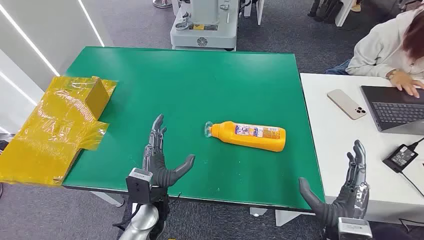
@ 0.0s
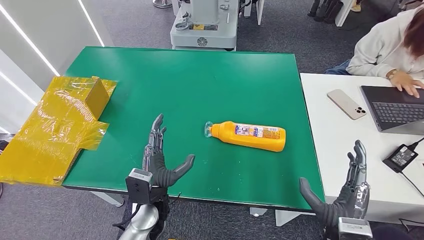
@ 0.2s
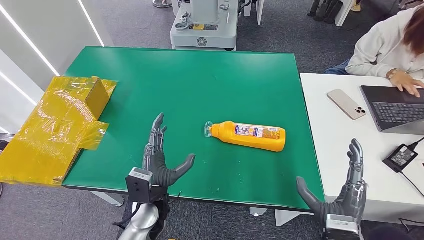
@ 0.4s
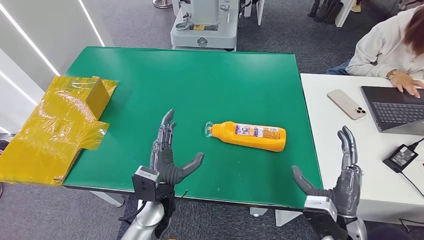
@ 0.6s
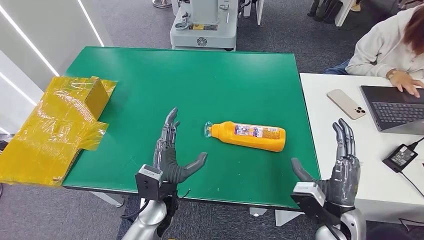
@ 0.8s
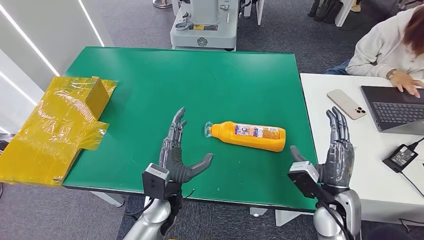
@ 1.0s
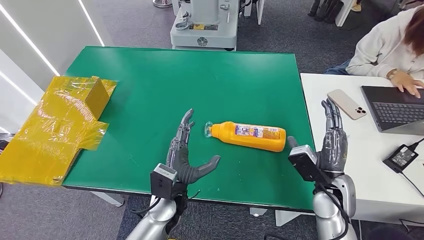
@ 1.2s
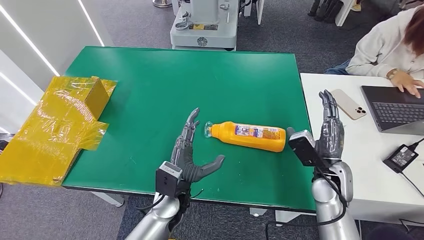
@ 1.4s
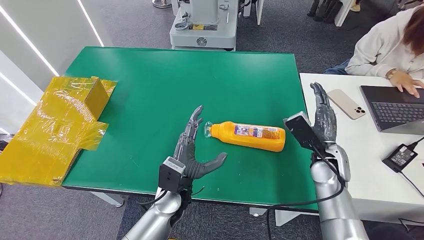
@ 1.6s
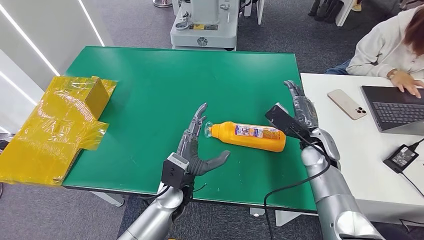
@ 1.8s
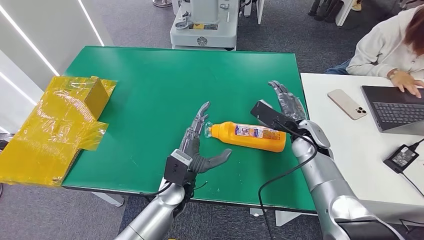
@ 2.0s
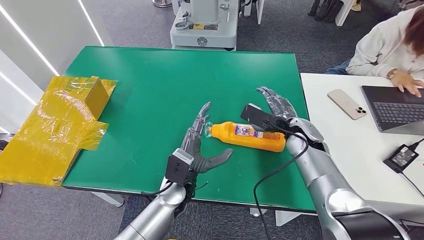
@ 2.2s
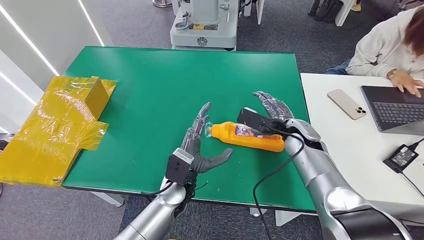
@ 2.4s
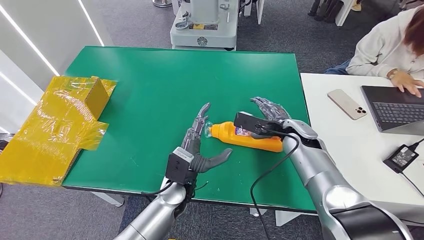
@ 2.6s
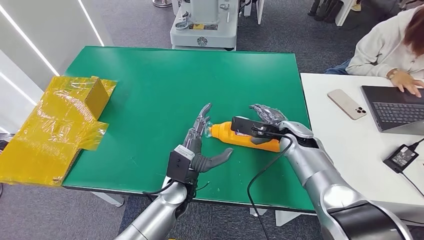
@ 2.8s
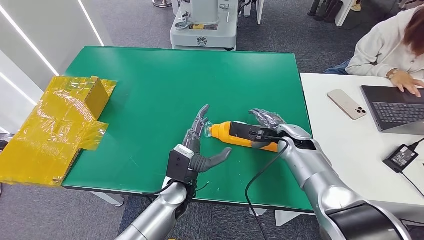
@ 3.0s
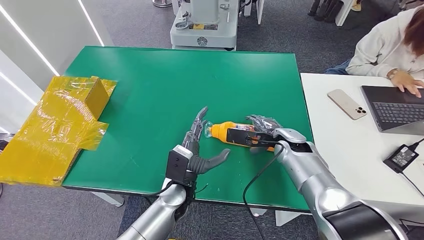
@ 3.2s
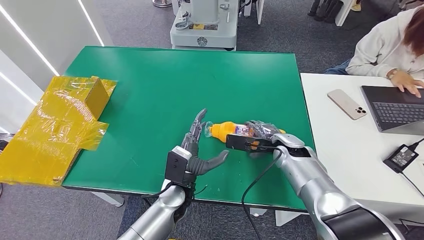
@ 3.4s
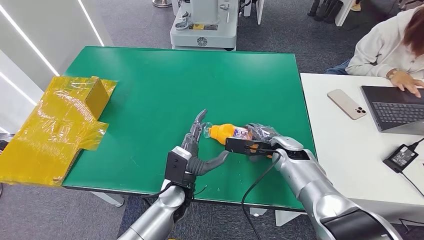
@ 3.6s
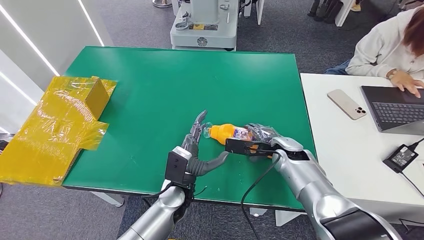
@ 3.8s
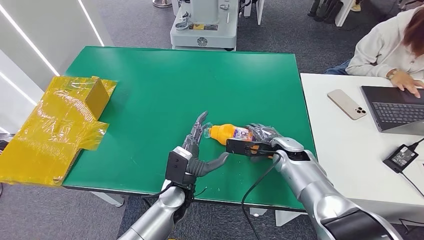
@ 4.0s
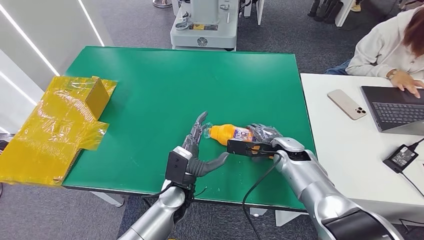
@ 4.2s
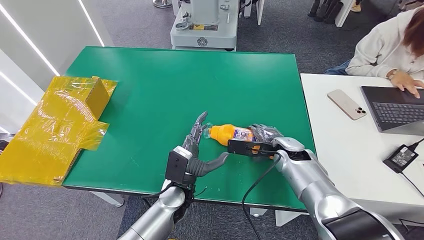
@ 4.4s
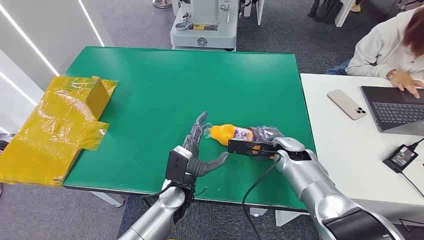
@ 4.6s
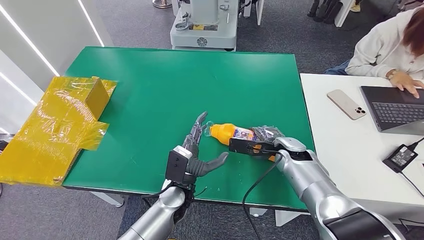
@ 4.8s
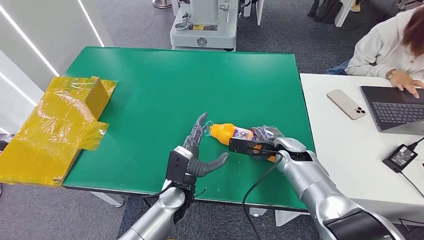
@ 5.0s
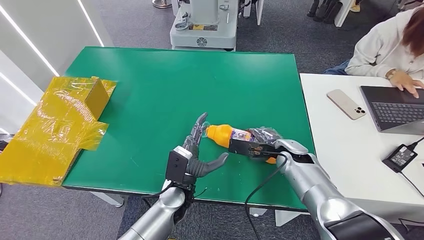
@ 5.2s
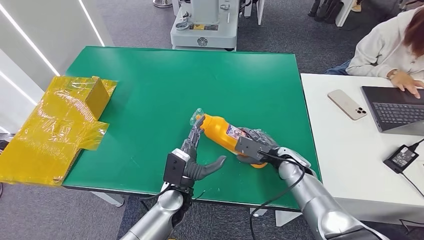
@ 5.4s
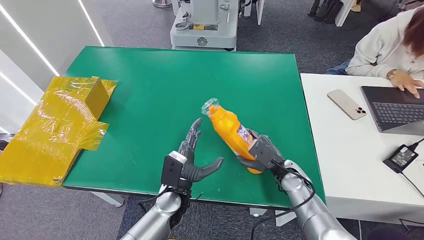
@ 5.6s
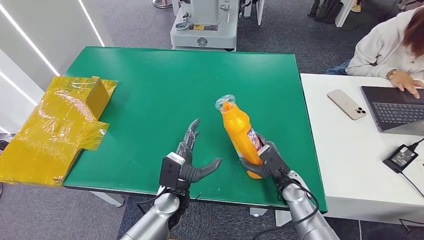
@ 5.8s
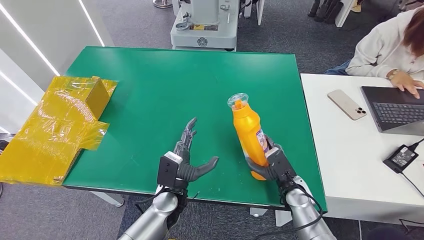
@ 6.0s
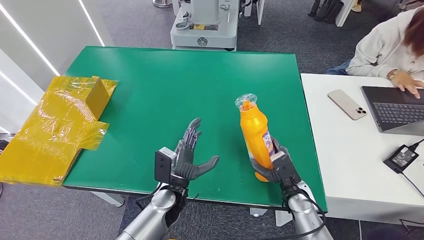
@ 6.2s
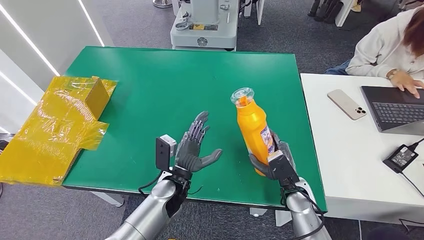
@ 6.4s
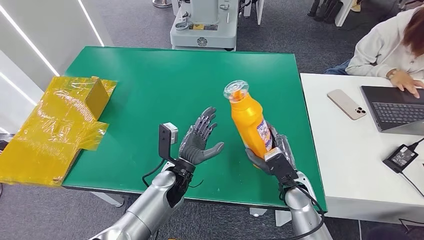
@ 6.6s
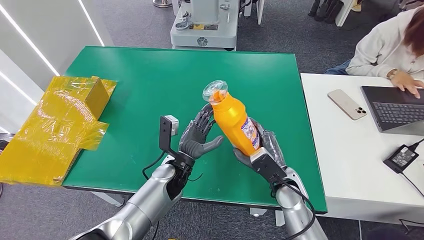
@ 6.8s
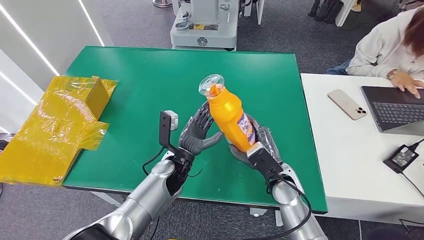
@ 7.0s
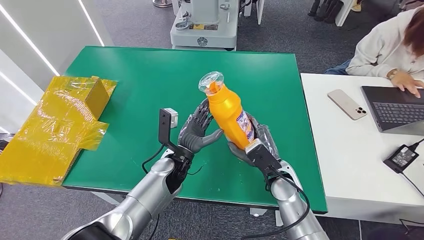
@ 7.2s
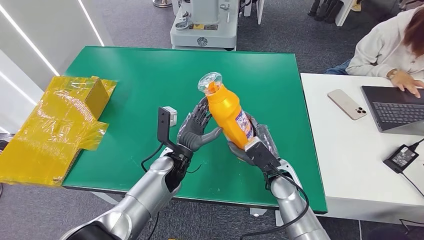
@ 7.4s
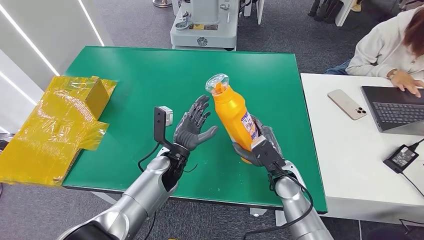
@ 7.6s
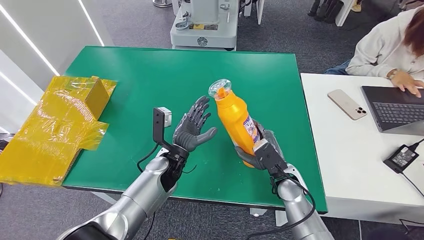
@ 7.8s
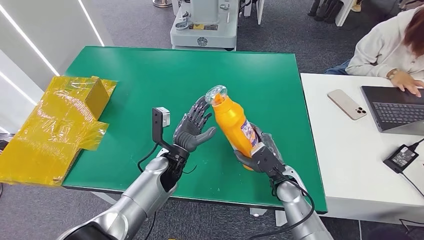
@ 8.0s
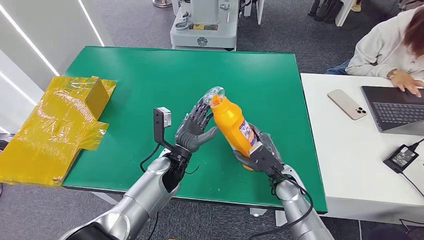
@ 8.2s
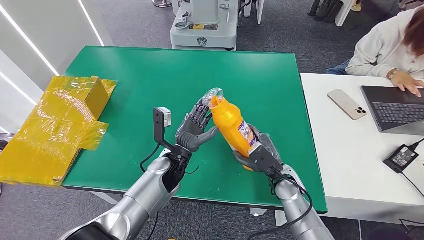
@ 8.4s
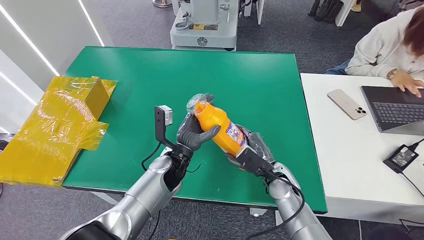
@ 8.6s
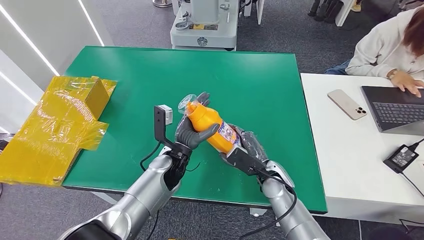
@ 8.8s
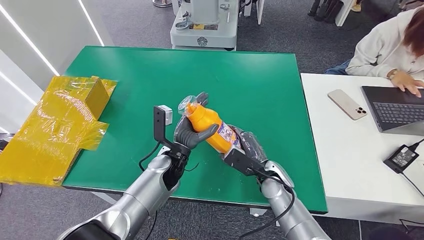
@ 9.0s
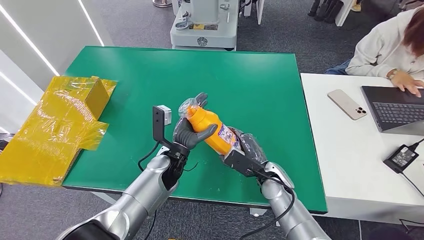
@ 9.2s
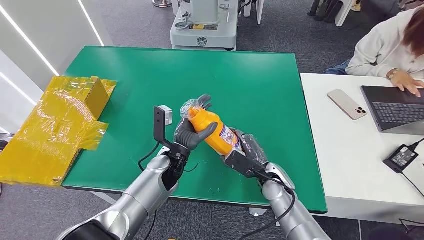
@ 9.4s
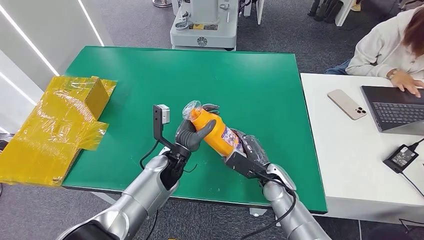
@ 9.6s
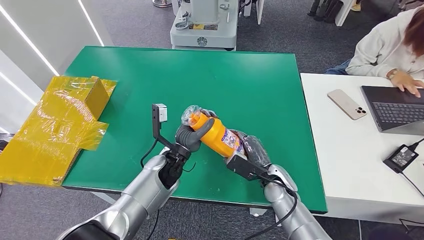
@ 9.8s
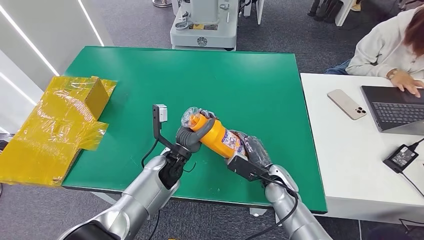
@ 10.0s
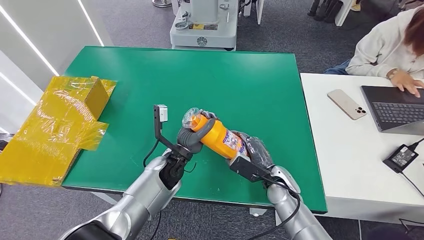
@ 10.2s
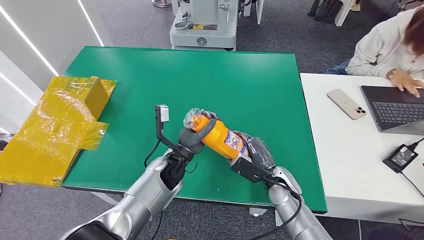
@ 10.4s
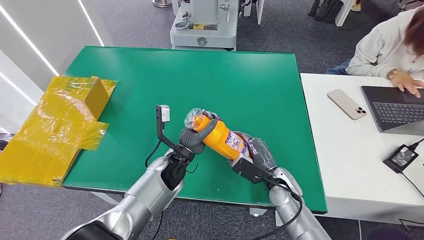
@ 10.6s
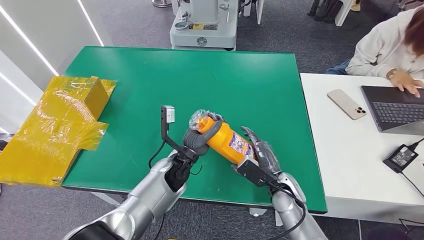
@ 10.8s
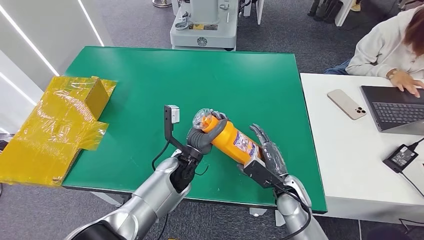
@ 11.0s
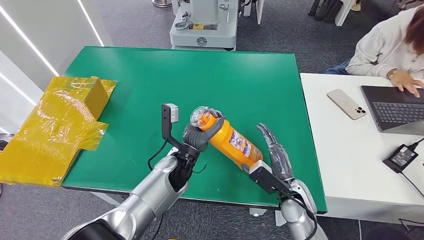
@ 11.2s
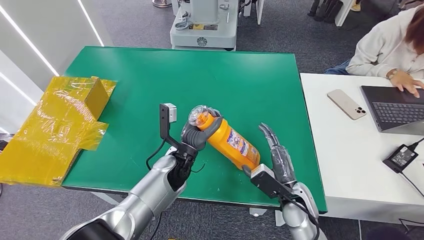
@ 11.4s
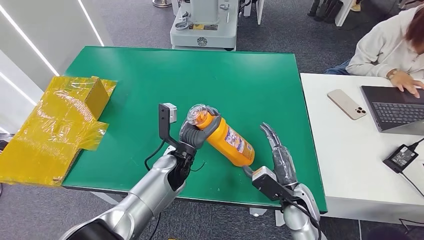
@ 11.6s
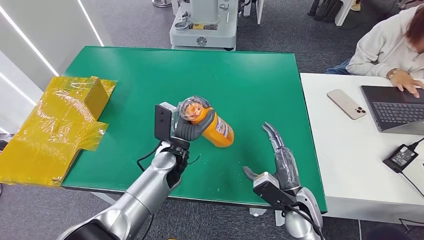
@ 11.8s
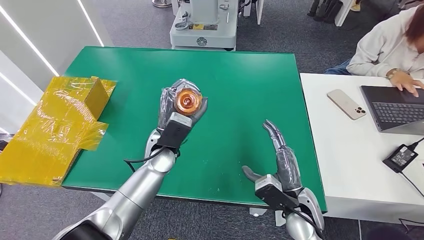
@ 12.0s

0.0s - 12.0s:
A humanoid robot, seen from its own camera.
Step, 0.0s - 6.2s: Pick up the bottle from the table.
1.6s - 3.0s: The right hand is displaced forward by roughly 5 cm.
3.0s - 4.4s: There are only small adjustments of the hands.
4.4s - 6.0s: The right hand is displaced backward and downward by approximately 15 cm.
6.0s - 7.6s: The left hand heads forward, covering about 5 cm. The right hand travels upward and to the left by about 10 cm.
7.6s - 9.0s: The hands stay close to where they were, moving slightly.
10.4s - 12.0s: The right hand shifts about 5 cm backward, while the left hand travels upward by roughly 5 cm.

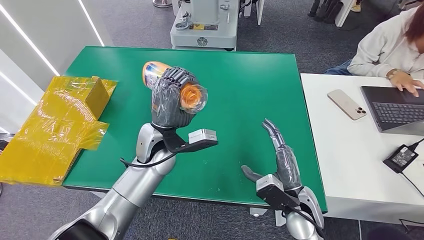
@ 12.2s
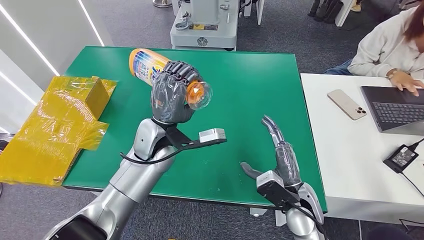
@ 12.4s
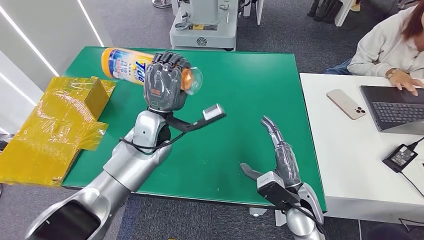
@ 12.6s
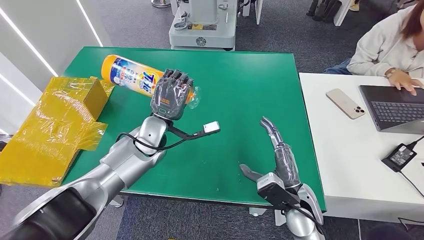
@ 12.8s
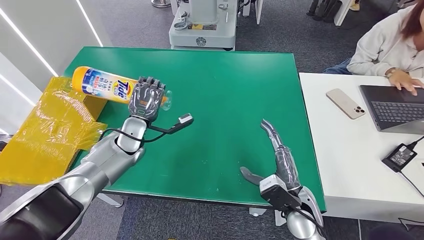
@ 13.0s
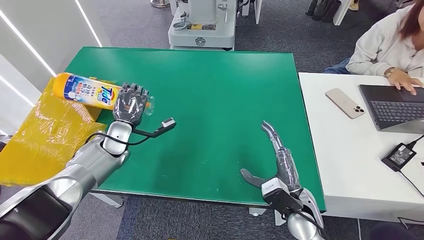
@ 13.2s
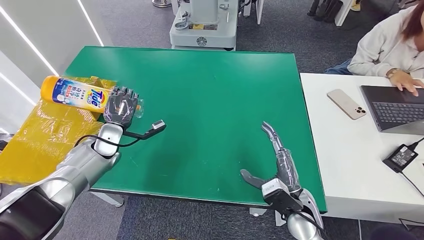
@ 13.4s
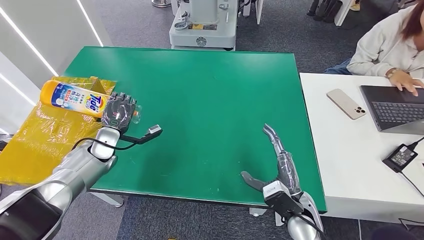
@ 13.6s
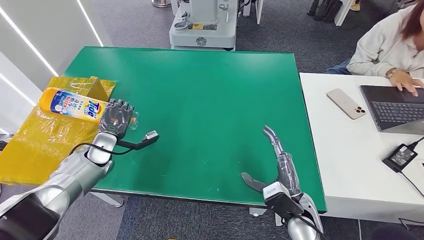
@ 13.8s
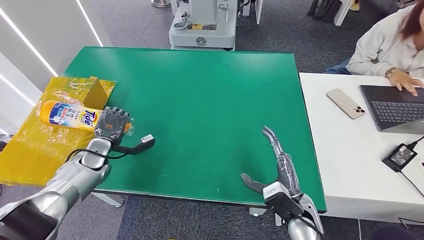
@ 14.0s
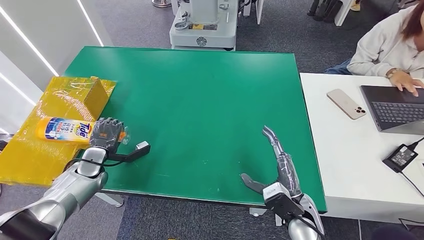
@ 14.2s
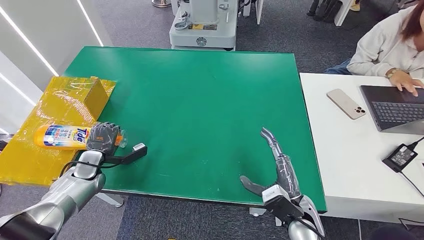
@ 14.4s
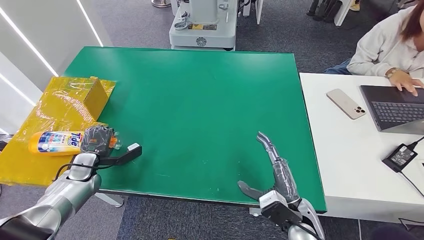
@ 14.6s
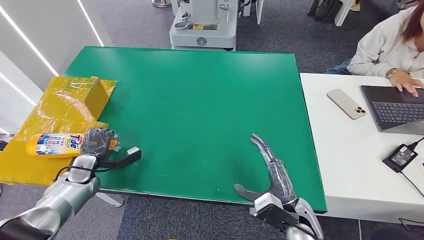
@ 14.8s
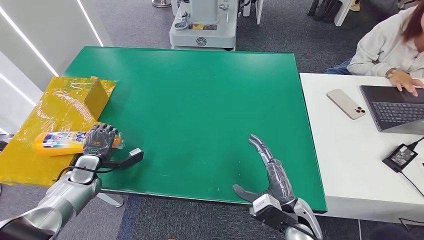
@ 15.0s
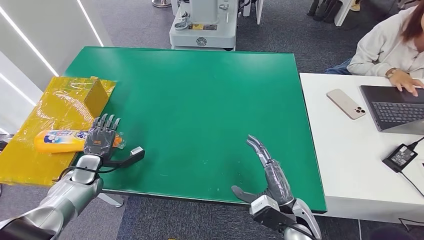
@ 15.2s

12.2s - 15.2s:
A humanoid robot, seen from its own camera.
Step, 12.2s - 15.2s: Turn the bottle to the front side.
13.8s - 15.2s: The left hand moves backward and downward, some 10 cm.
